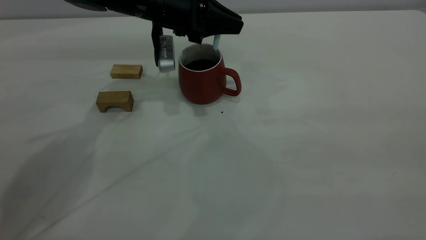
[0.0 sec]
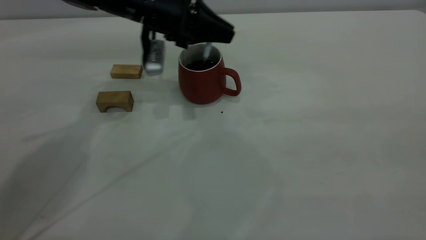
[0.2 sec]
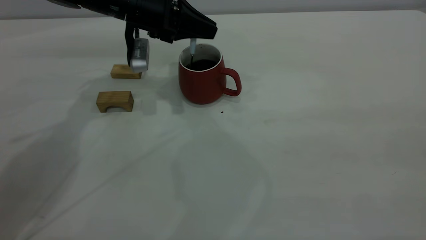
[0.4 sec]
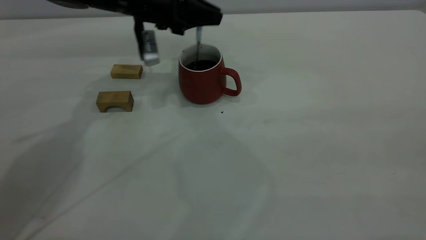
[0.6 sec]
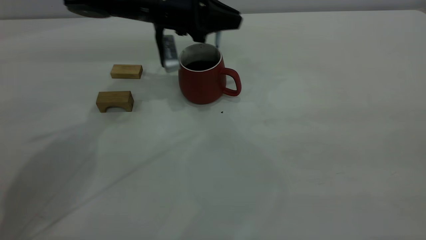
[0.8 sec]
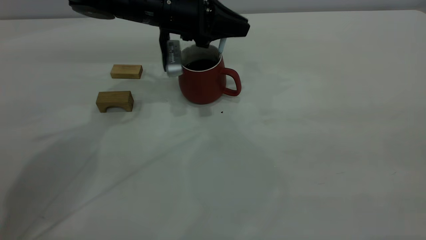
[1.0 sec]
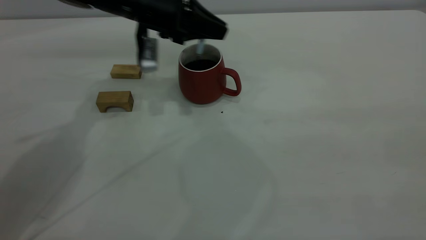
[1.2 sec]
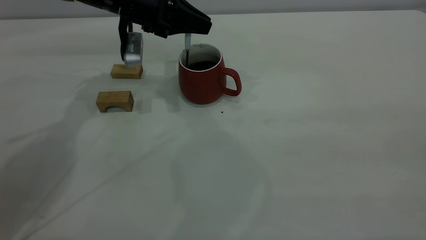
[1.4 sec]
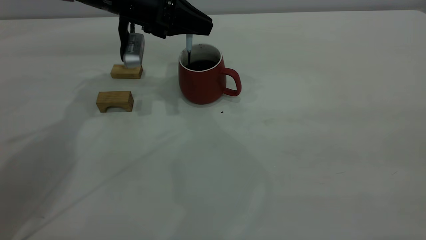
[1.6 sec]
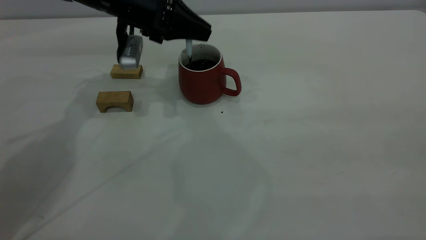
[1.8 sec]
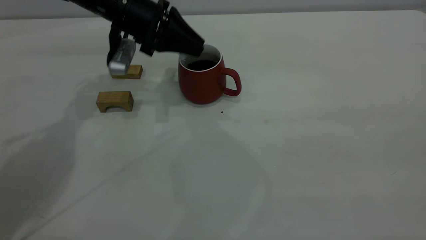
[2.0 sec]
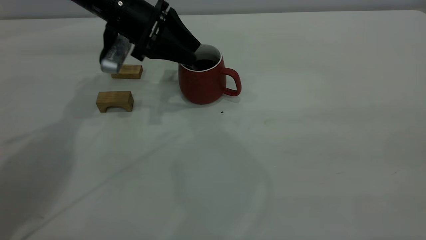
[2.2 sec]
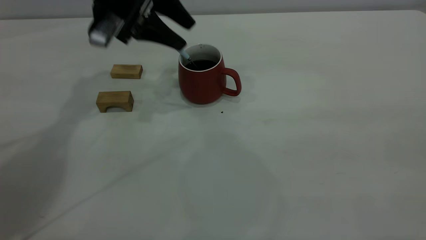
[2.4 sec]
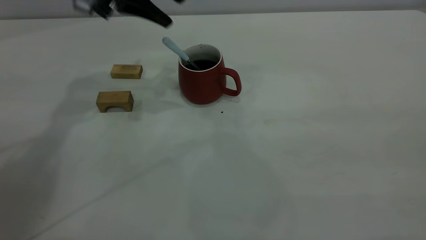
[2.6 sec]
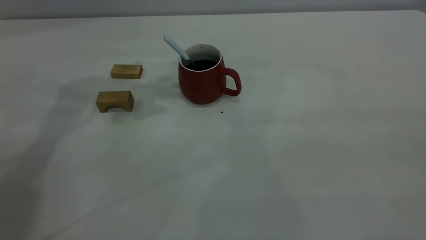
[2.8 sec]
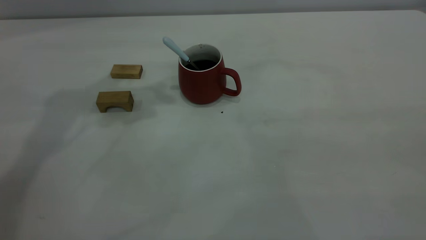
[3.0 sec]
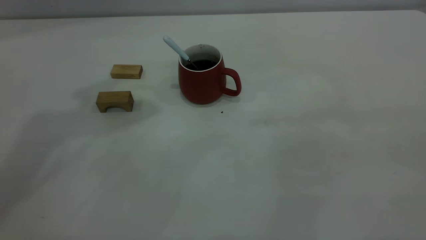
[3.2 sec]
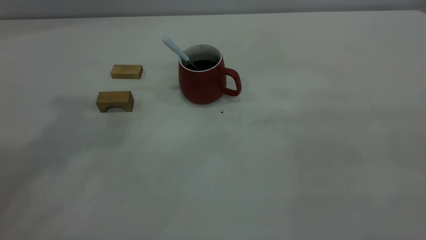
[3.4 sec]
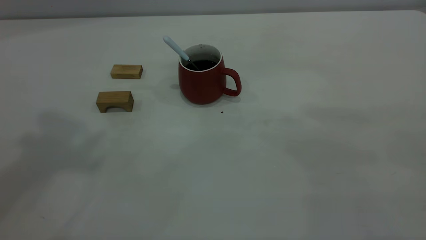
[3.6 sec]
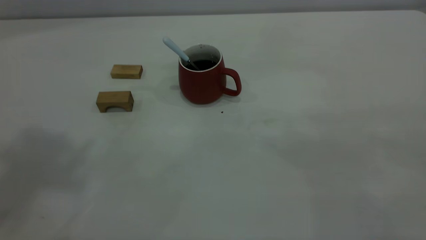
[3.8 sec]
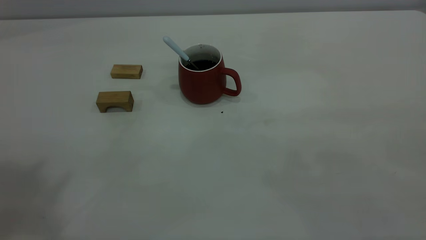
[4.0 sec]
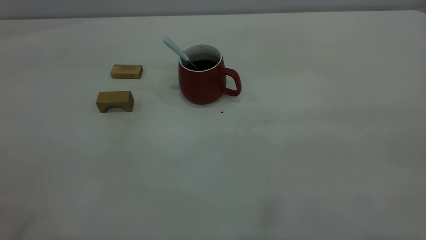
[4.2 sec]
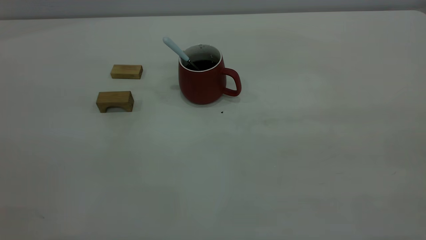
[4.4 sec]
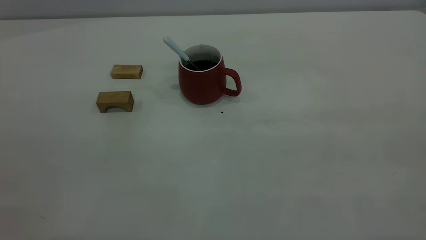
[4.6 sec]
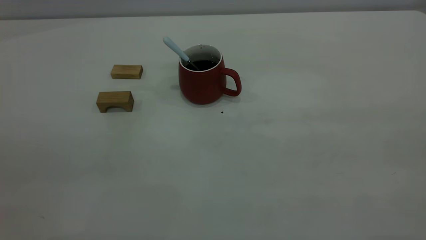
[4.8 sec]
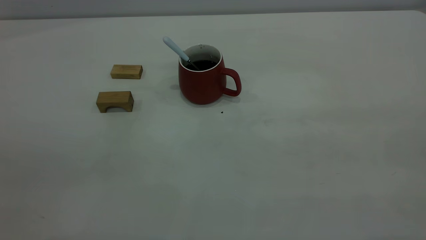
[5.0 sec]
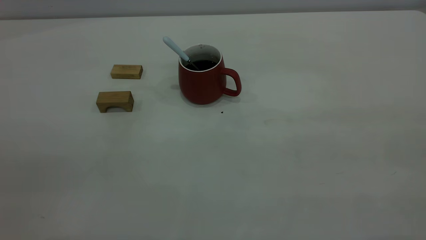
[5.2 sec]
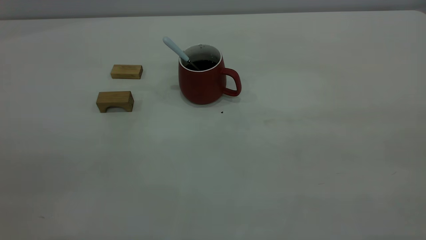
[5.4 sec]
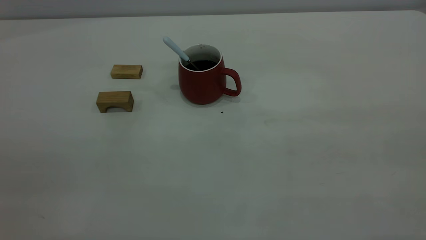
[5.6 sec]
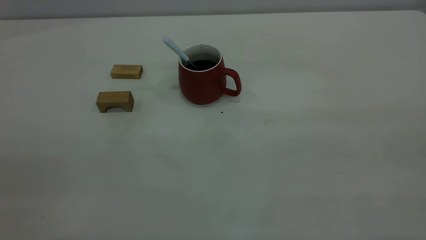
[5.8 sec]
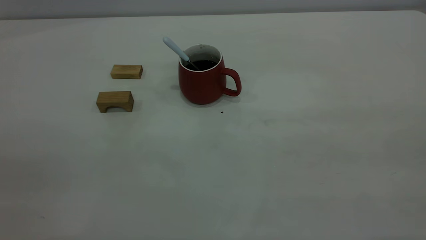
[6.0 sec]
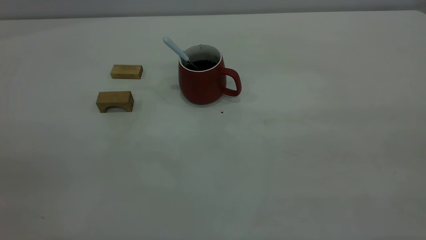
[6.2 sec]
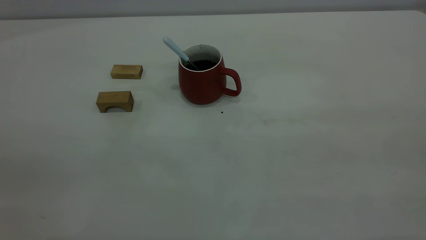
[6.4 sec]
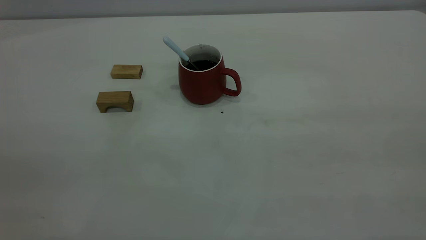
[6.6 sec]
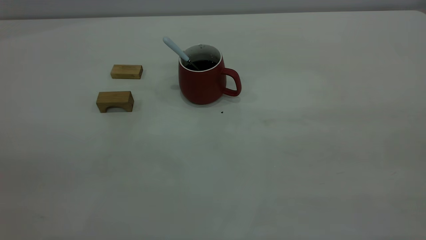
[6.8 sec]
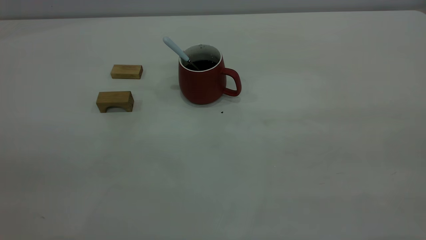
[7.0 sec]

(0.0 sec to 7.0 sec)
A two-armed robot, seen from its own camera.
Step, 0.0 sec - 2.4 sec: Stir the coffee in the cup.
0.0 sec - 1.4 sec: The left gripper swings left and right, about 5 cm each way, with 2 reversals.
1.4 sec - 2.8 sec: The left gripper shifts some 20 cm upward, and opens.
